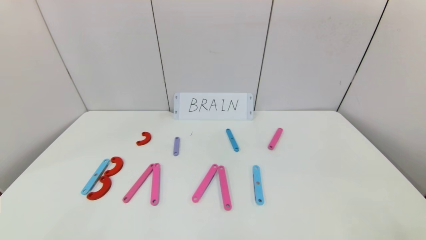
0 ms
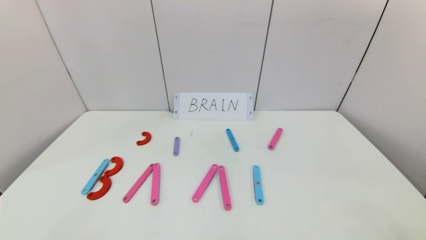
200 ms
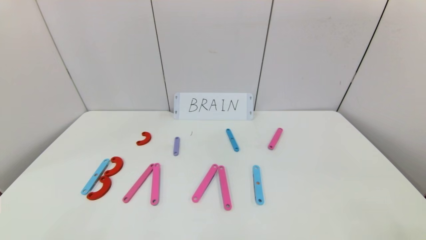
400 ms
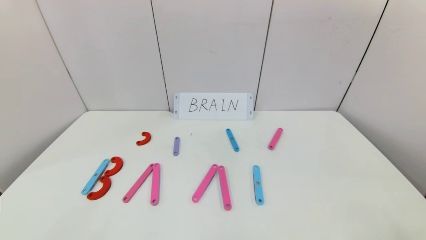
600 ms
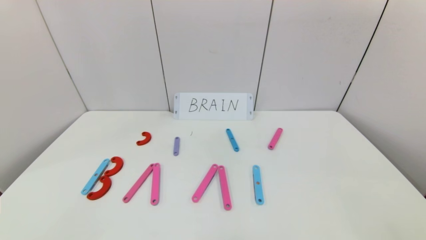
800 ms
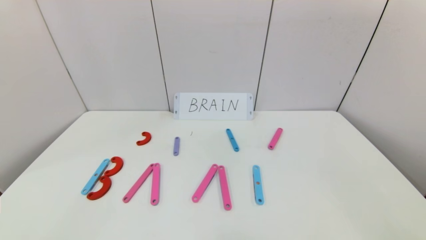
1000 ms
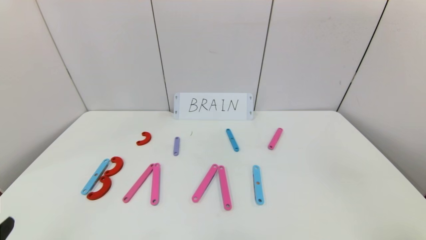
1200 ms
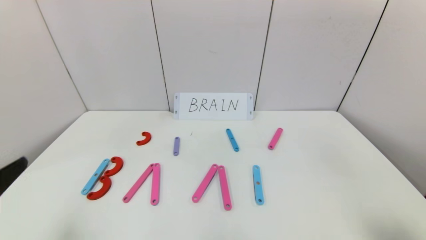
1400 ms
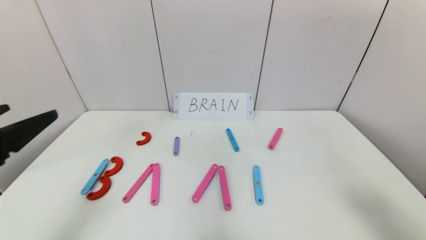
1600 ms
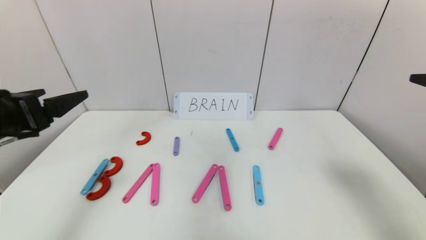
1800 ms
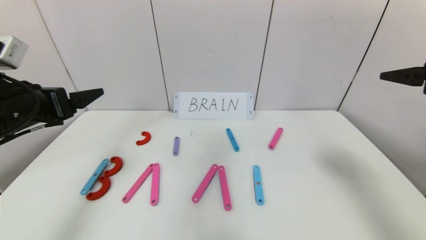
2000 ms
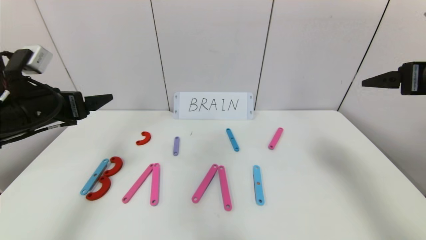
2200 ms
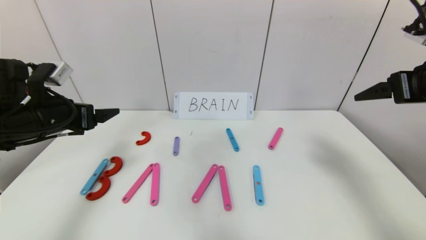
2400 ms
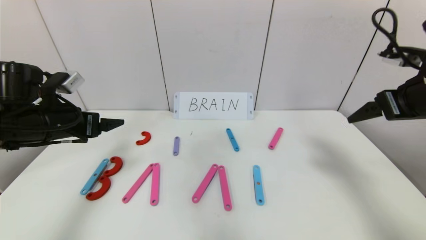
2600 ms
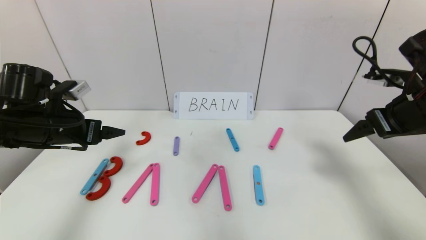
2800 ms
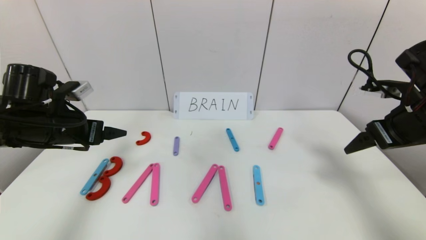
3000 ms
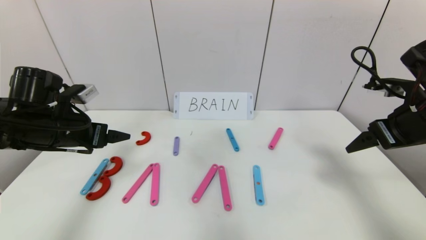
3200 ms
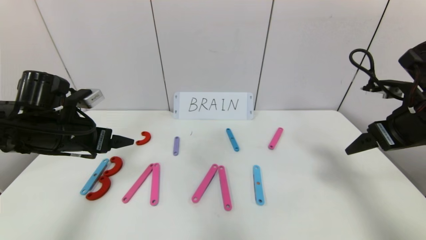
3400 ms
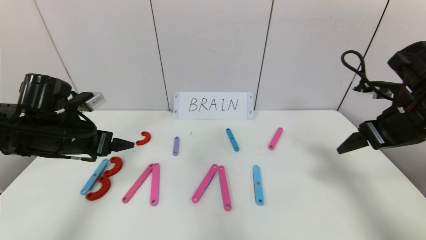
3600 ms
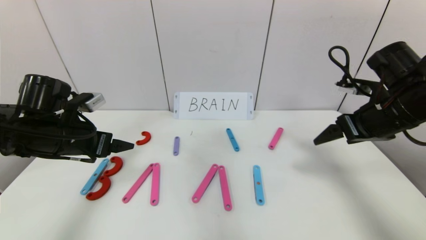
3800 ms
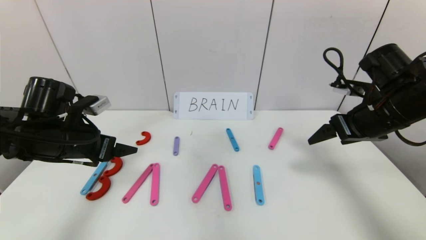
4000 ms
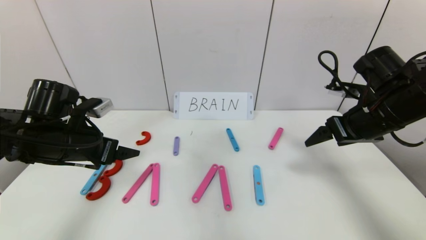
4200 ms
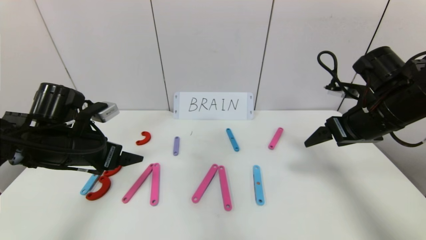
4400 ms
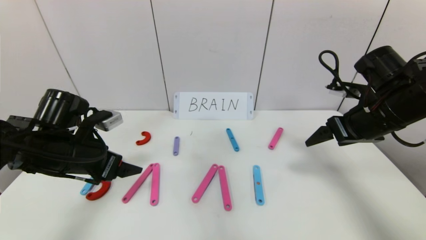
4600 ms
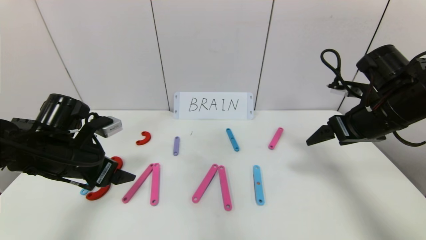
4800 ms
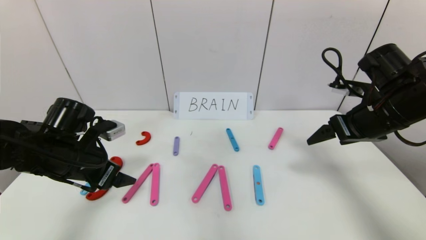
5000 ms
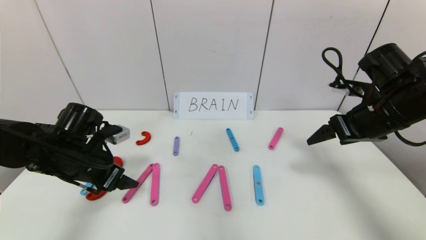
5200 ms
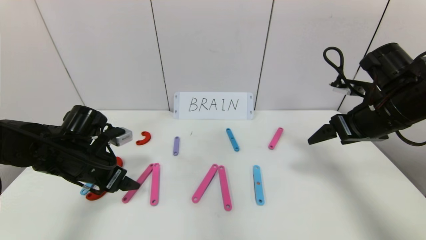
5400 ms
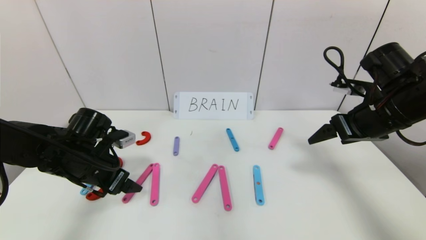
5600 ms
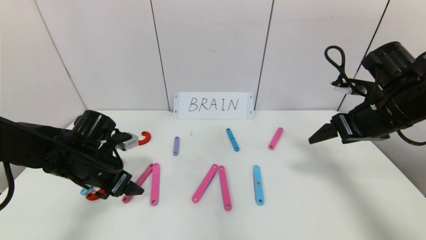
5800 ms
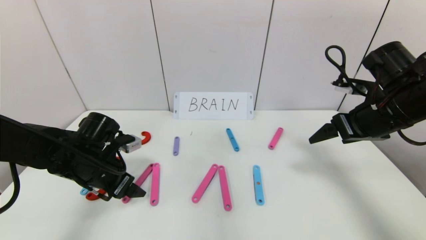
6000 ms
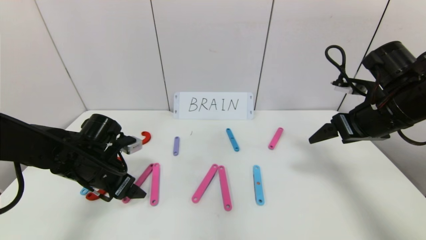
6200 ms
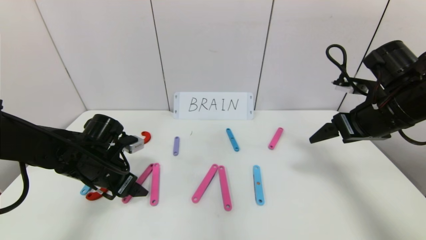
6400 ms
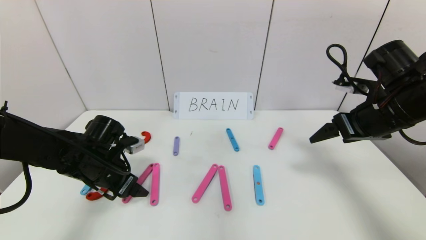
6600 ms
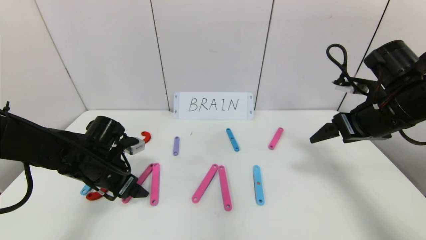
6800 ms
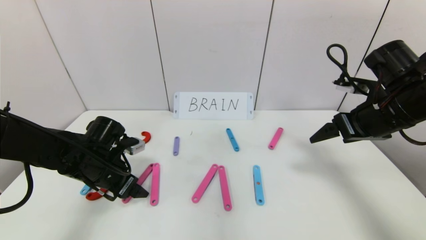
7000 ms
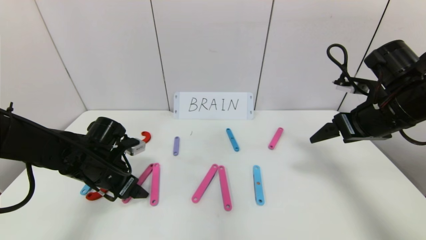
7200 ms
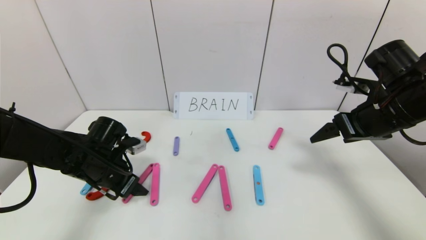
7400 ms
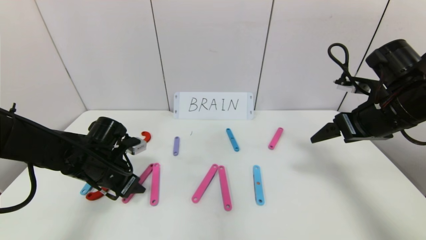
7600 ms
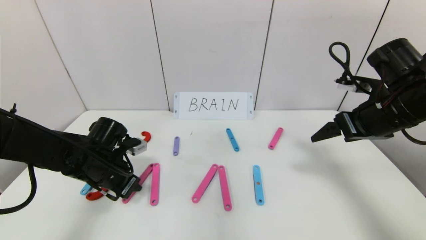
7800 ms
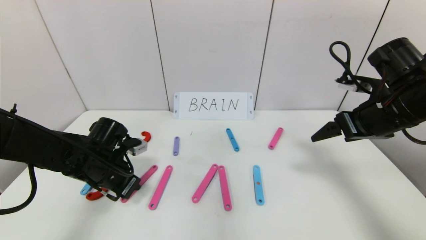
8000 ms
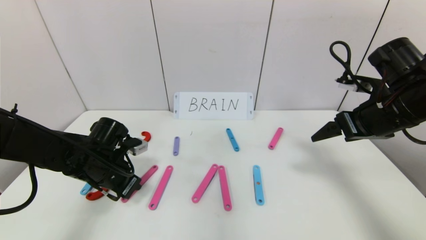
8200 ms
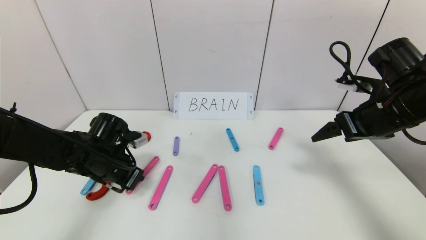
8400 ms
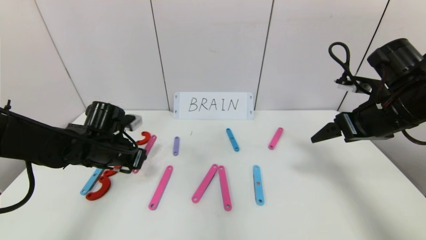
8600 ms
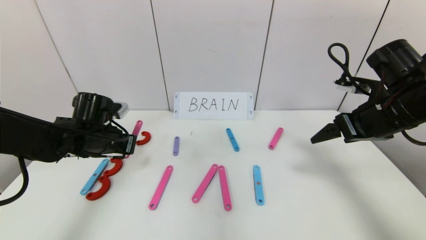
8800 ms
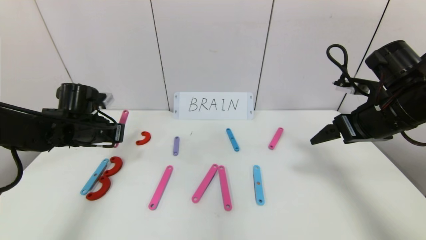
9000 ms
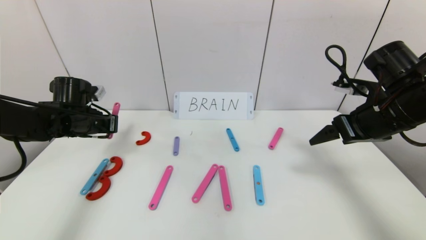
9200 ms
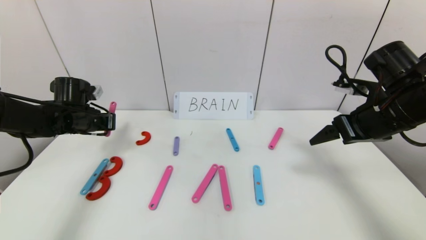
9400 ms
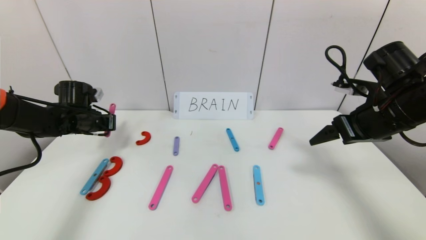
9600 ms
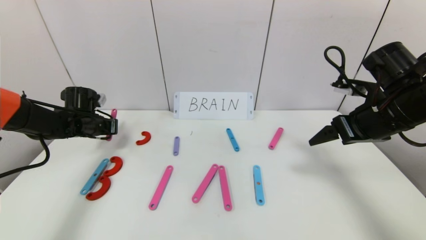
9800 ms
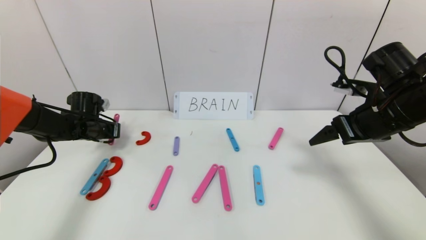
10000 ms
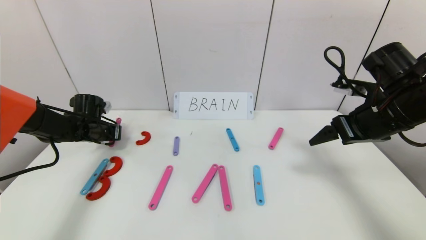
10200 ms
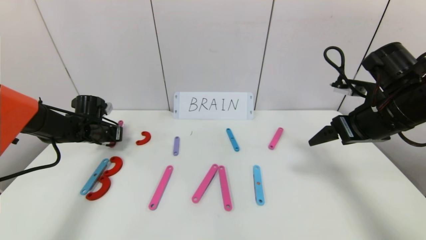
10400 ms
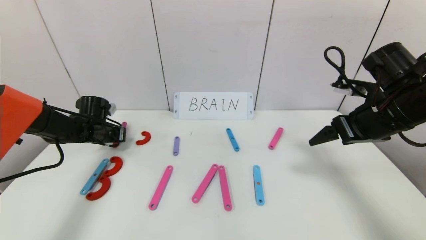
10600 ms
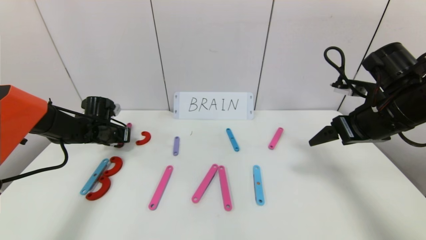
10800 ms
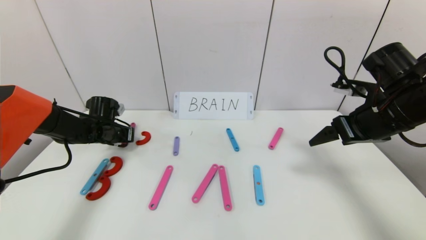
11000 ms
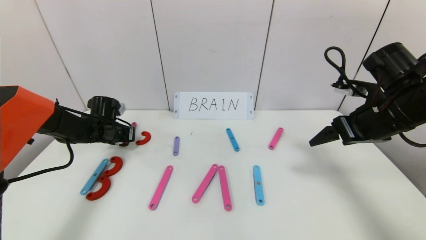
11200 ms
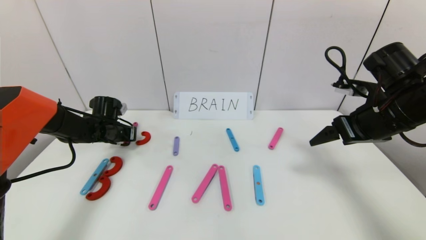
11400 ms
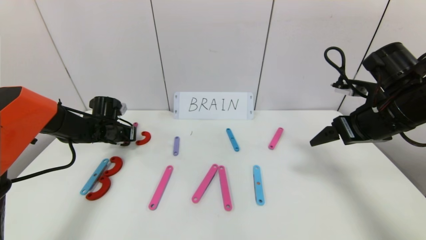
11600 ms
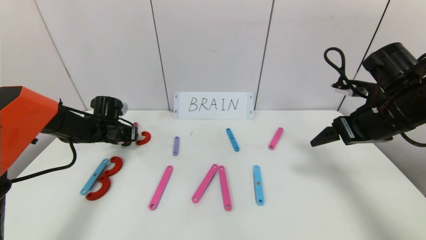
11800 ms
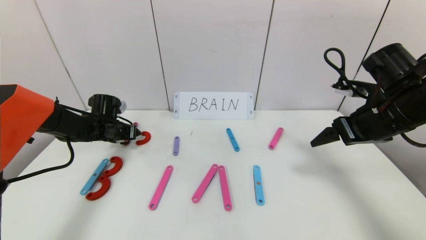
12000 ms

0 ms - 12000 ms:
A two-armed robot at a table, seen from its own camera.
Task of the whole recording: rearrange the word baai as brain.
0 ms - 1600 ms: Both grippers move upward and forward, about 25 cm.
1600 ms - 3000 ms: Both grippers move forward, approximately 15 cm.
3000 ms - 4400 ms: The left gripper ends up some 5 cm from where it was, while the right gripper ends up some 5 cm from where it was.
4400 ms - 6000 ms: The left gripper heads downward, covering approximately 5 cm.
6000 ms - 7600 ms: The left gripper closes up.
7600 ms - 9000 ms: The left gripper heads upward and forward, covering some 10 cm, and closes.
9000 ms - 10400 ms: The left gripper goes approximately 10 cm forward and downward.
10400 ms - 12000 ms: The left gripper opens.

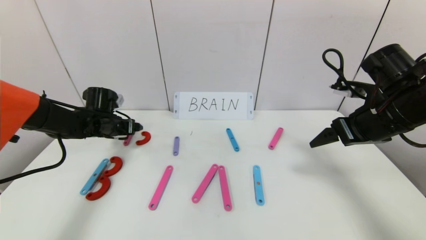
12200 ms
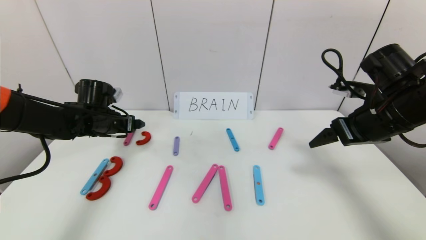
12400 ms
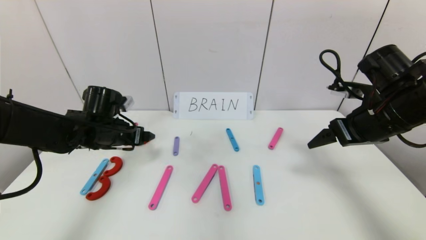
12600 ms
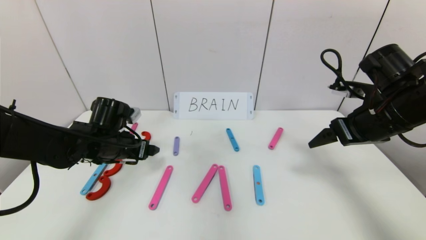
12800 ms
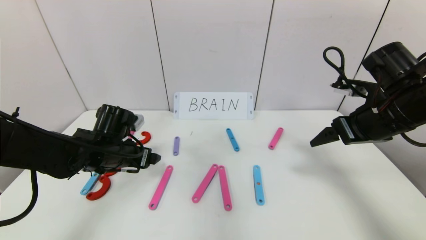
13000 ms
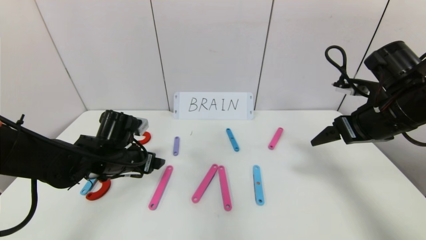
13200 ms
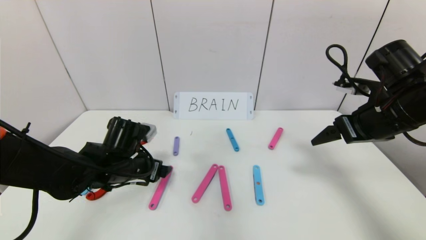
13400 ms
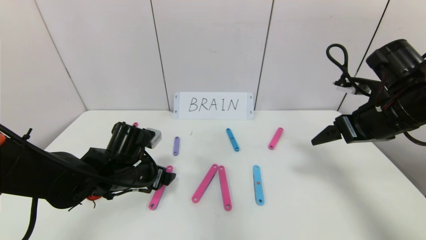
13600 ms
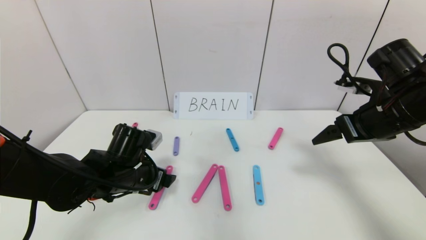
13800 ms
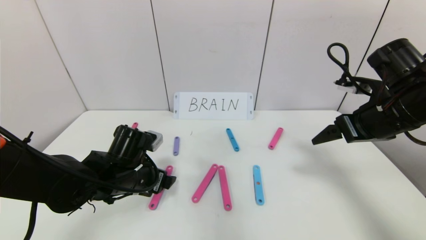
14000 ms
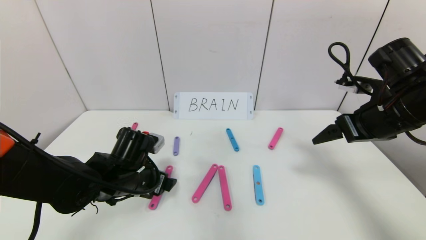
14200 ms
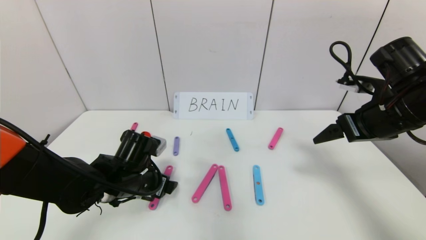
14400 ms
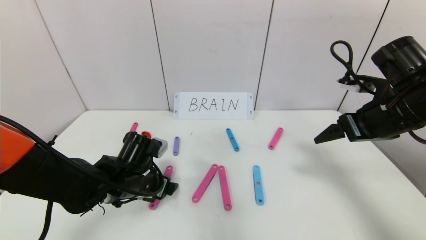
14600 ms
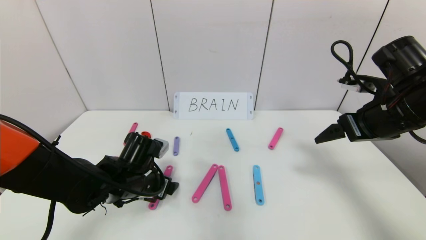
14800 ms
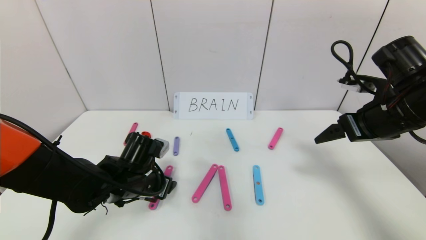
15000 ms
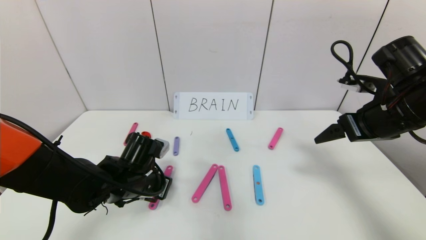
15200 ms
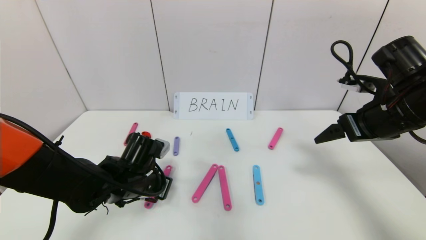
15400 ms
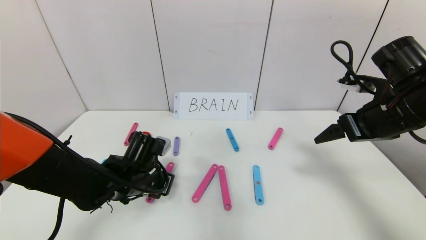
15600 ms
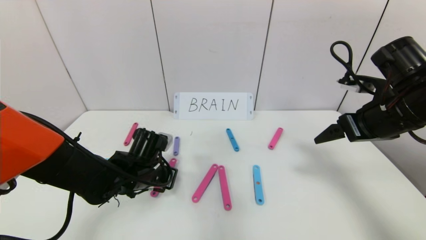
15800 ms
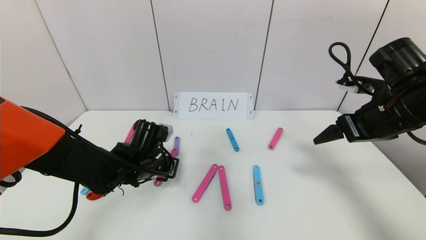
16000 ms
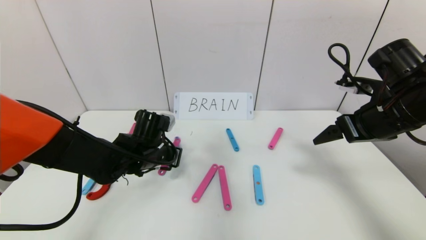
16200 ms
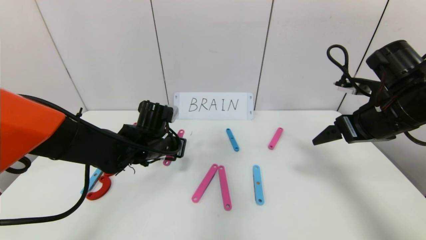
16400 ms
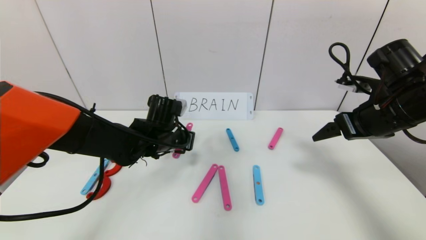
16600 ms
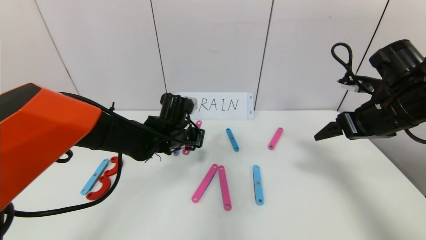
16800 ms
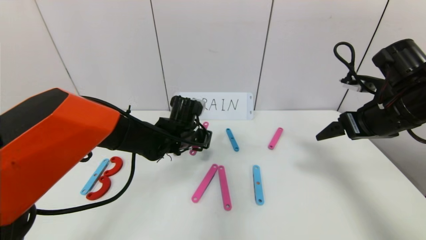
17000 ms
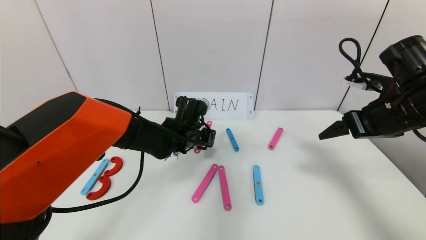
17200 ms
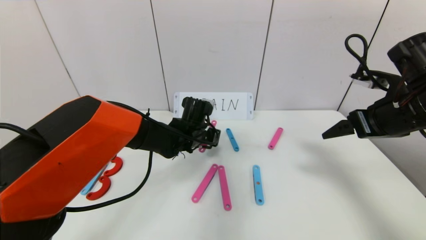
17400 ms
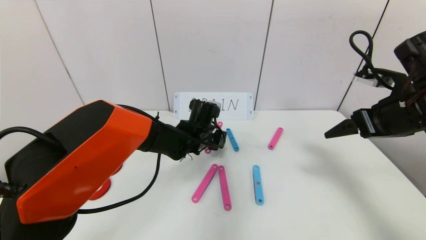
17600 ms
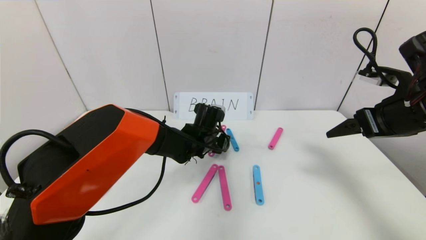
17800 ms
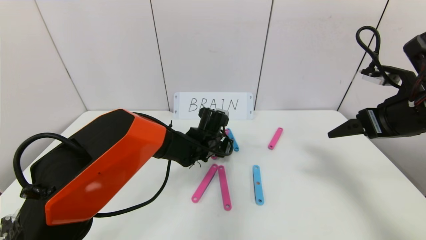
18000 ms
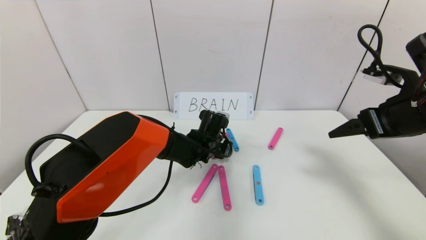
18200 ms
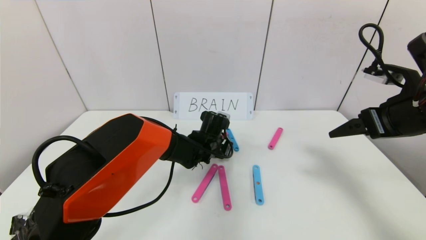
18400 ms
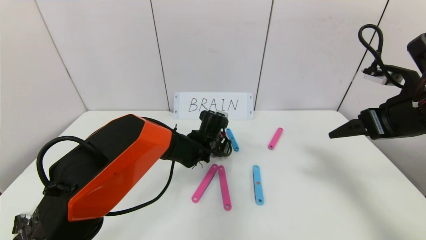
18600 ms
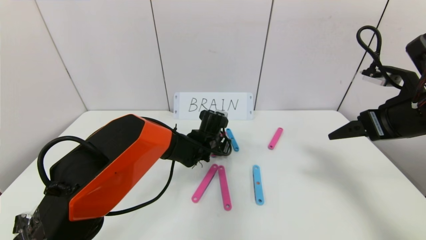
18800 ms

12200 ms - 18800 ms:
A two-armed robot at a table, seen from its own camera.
Task of the whole recording: rearrange the word baai as brain.
12200 ms - 13800 ms: The left gripper heads backward and to the right, covering approximately 20 cm.
13800 ms - 15400 ms: The left gripper closes up.
15400 ms - 17200 ms: The left gripper heads forward and to the right, covering about 15 cm.
17200 ms - 18800 ms: The left gripper heads downward and to the right, covering some 5 cm, and opens.
